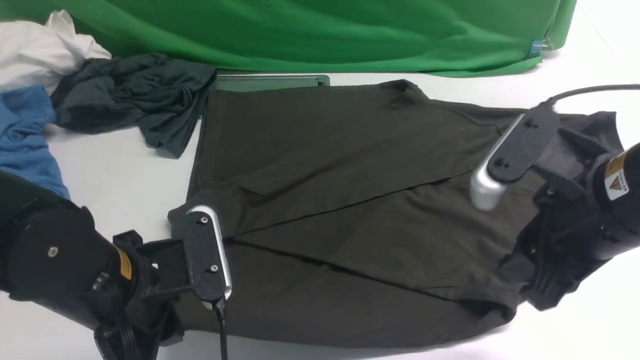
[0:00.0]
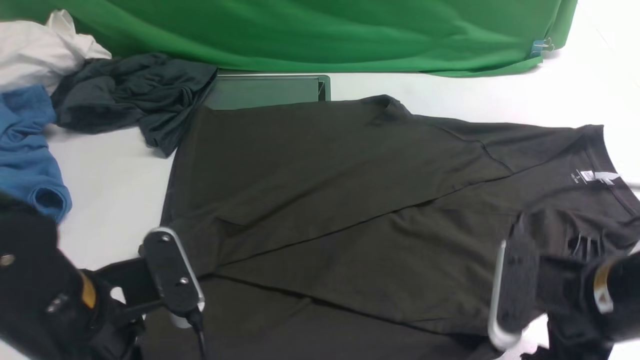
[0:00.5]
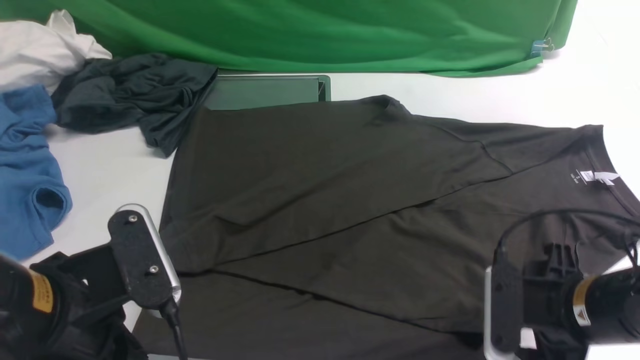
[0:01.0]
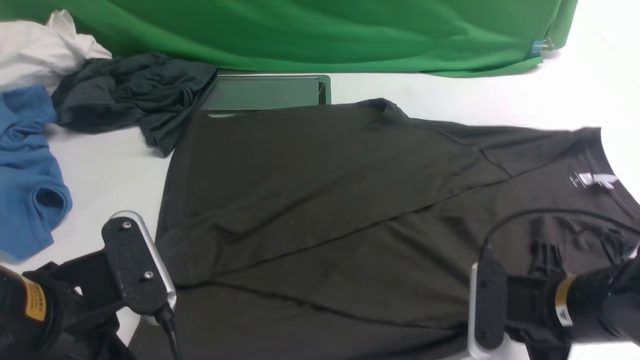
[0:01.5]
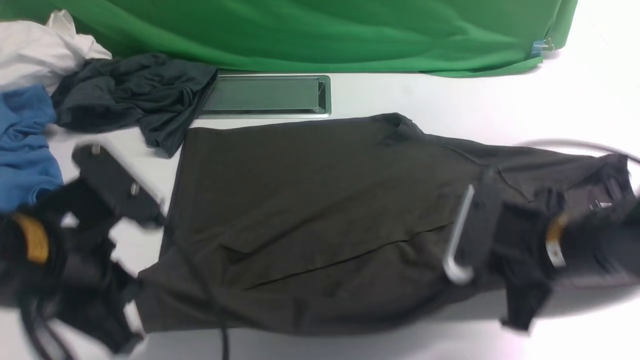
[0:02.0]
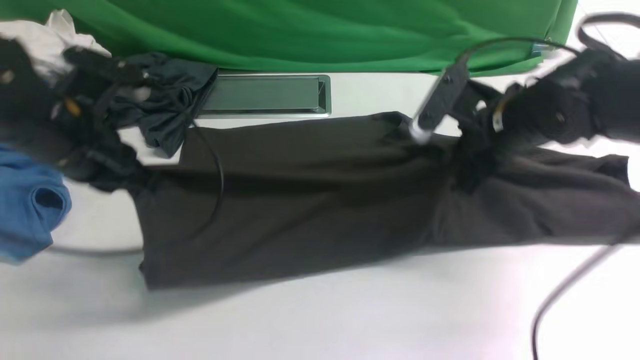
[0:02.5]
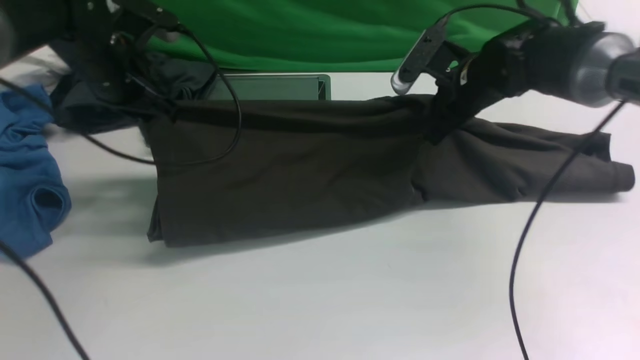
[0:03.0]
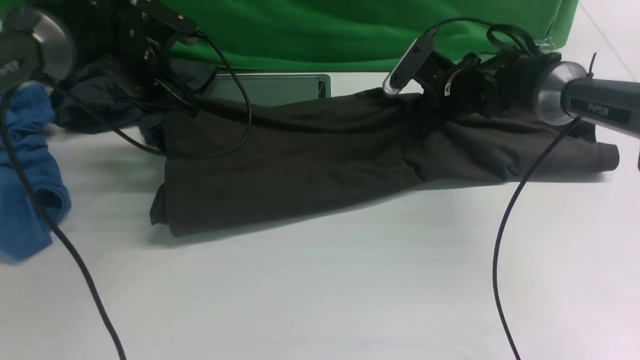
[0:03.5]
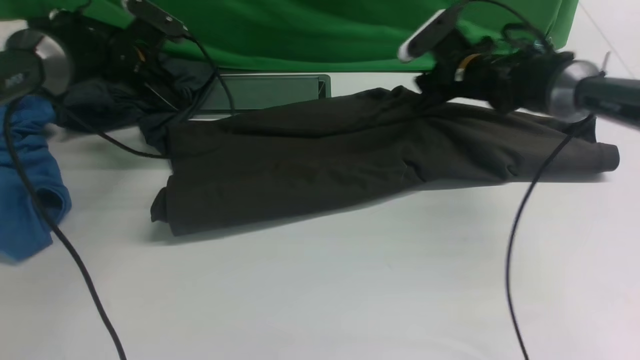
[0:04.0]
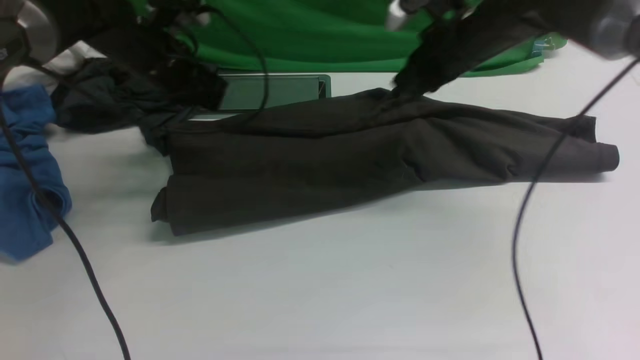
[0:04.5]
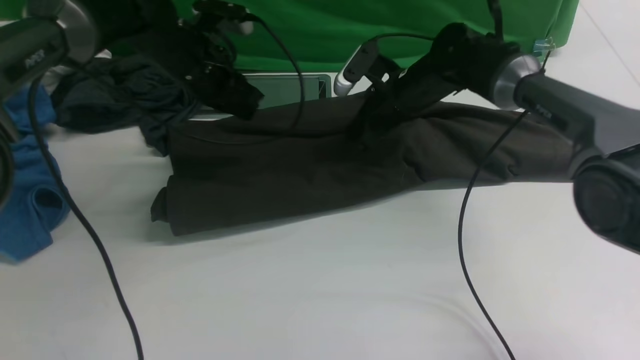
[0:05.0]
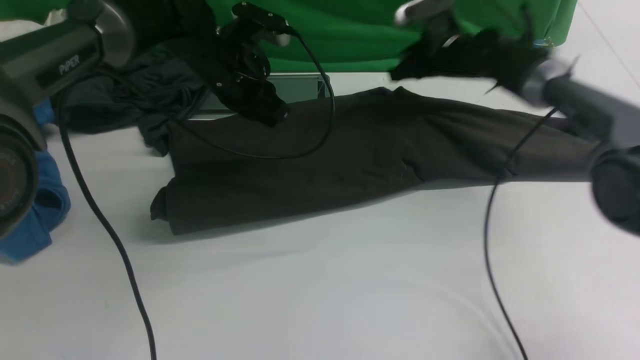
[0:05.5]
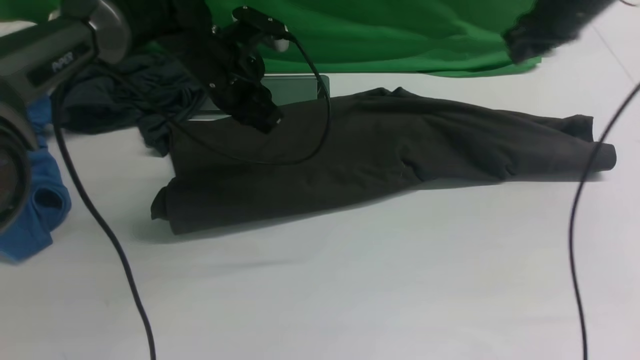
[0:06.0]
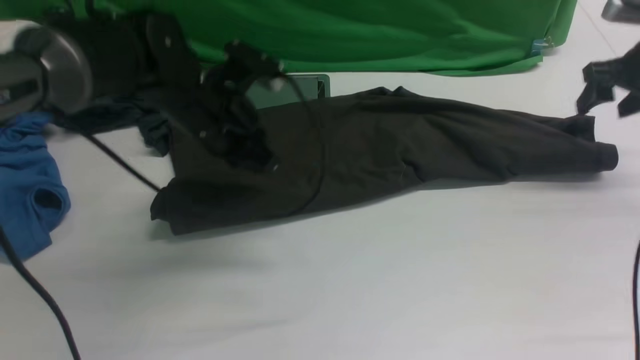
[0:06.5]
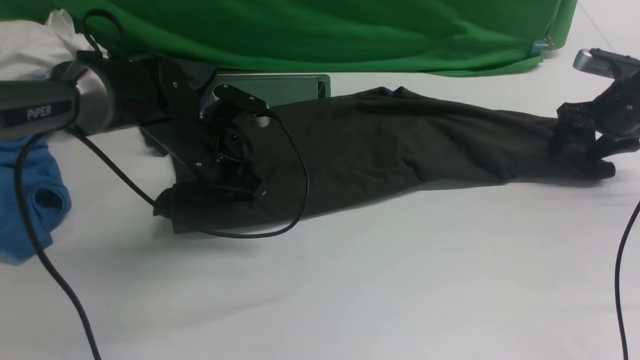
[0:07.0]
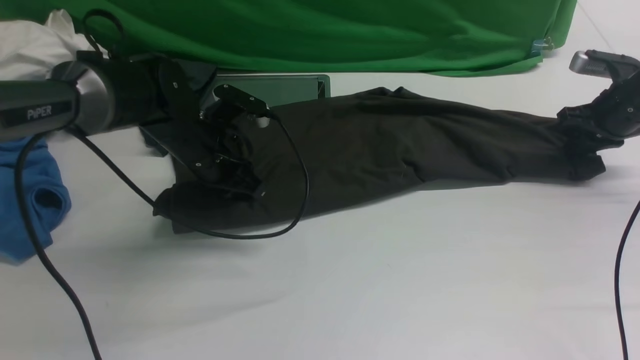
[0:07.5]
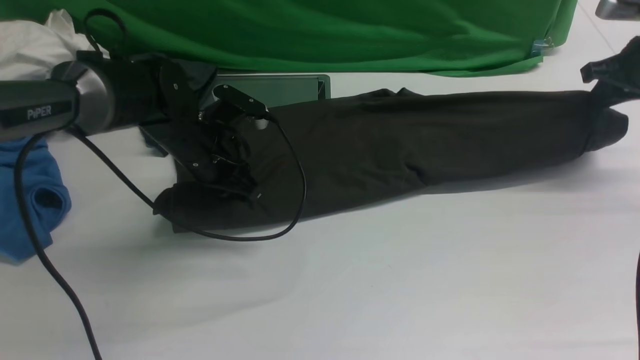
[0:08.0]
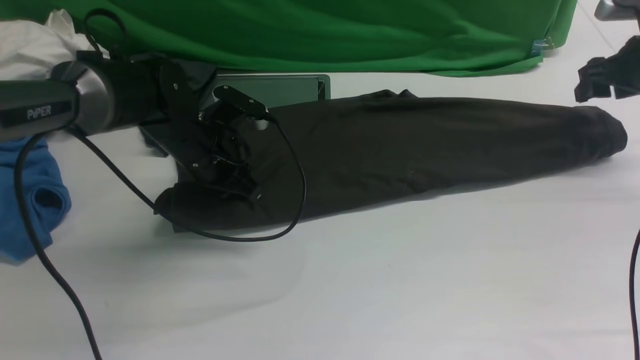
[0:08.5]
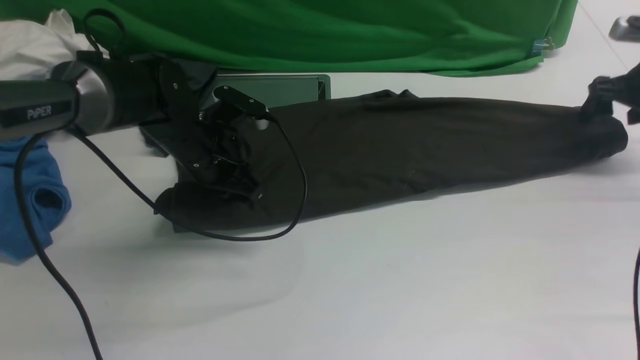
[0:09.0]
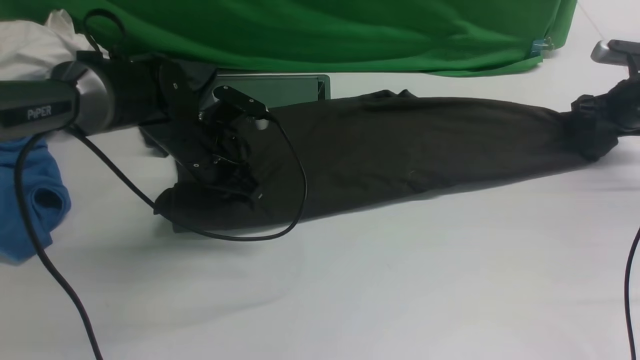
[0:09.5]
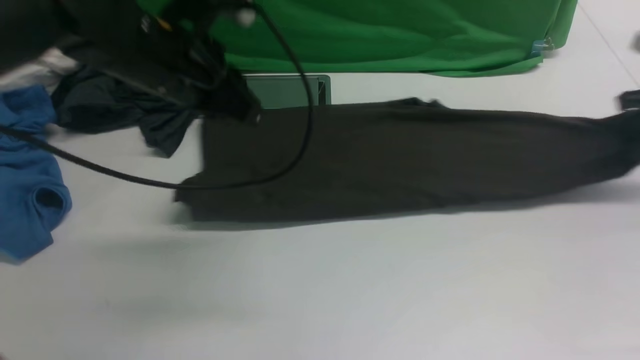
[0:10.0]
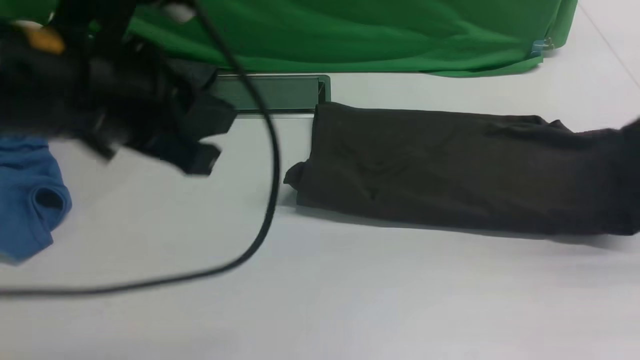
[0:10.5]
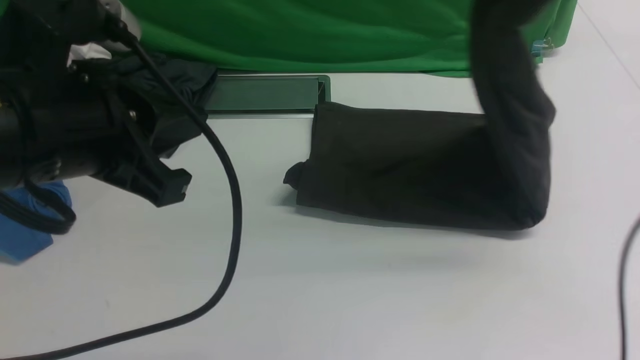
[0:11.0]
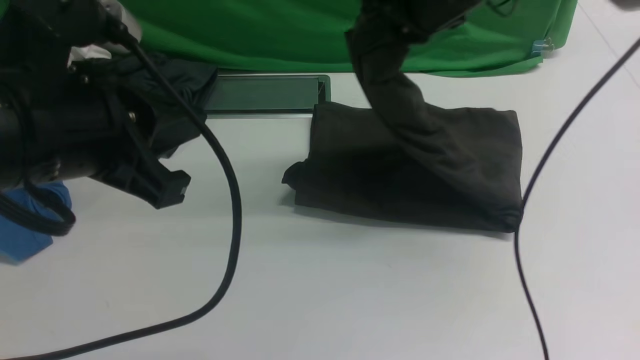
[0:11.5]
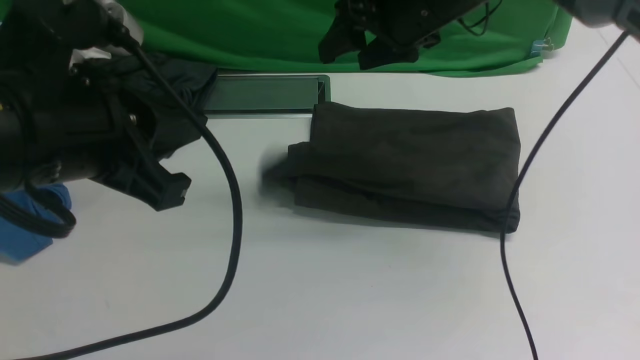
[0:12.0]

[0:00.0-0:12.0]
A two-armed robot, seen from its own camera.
Step, 0:02.0 to 0:05.0: use both arms to drag the lower edge of the fabric forward and fold it over the upper edge.
Step, 0:05.5 to 0:09.5: use the right arm to clamp the right edge of the fabric.
0:00.0 to 0:02.0: The left gripper shifts roughly 5 cm upward; the right gripper moves downward, some 10 cm, and closes.
0:02.0 to 0:04.0: The two grippers go some 30 cm forward. The right gripper opens. The left gripper opens up.
0:04.0 to 0:06.0: The right gripper travels to the right and upward by about 15 cm, and closes, then opens again. Meanwhile the left gripper travels to the right by about 15 cm, and closes up.
0:06.0 to 0:08.0: The left gripper travels downward by some 10 cm; the right gripper is displaced to the right by roughly 10 cm, and opens, then closes again.
0:08.0 to 0:10.0: The left gripper goes approximately 15 cm upward and backward, while the right gripper shifts approximately 5 cm to the right, goes downward and returns, roughly 10 cm each way, and opens, then closes again.
0:10.0 to 0:12.0: The left gripper heads backward, covering about 15 cm. Meanwhile the right gripper moves to the left, roughly 35 cm, and opens.

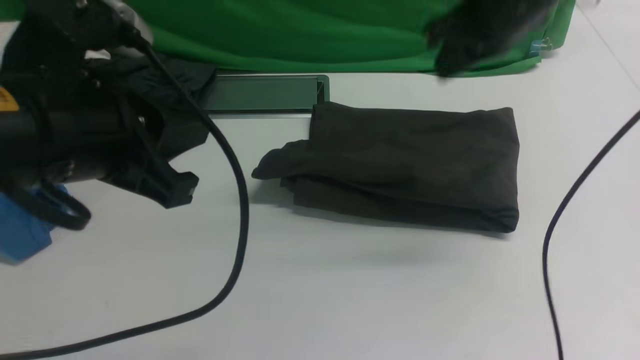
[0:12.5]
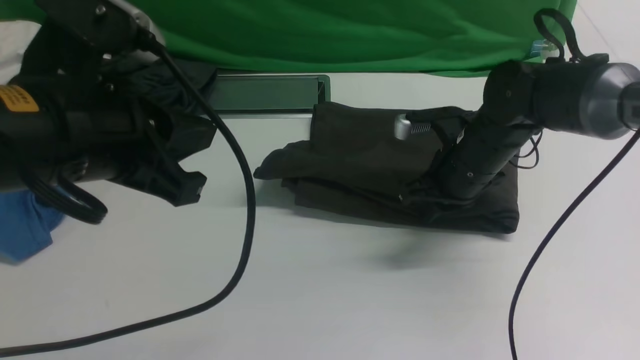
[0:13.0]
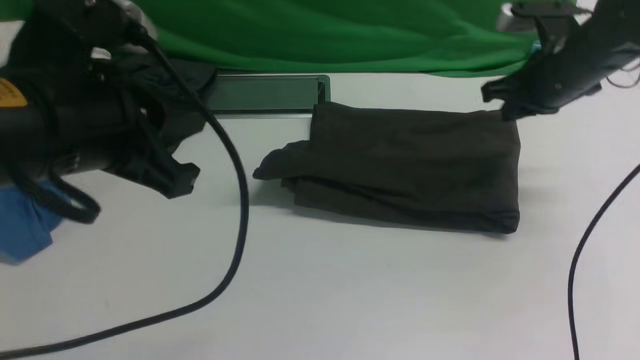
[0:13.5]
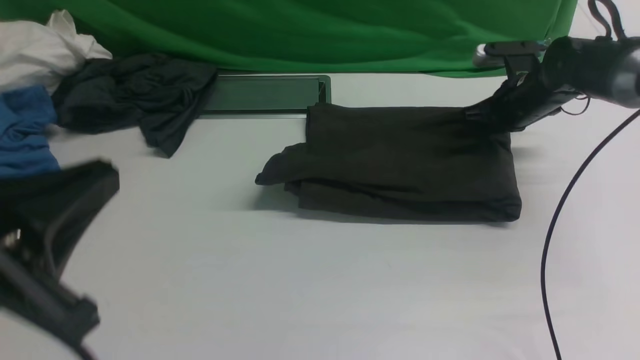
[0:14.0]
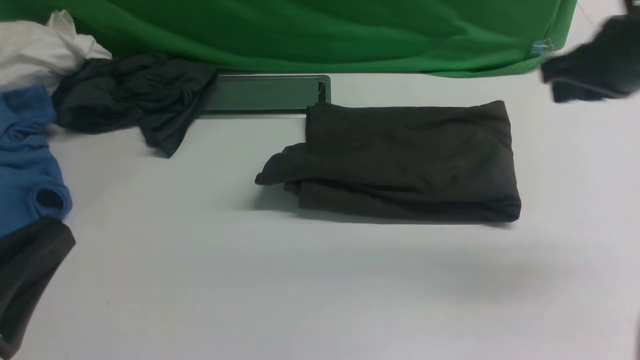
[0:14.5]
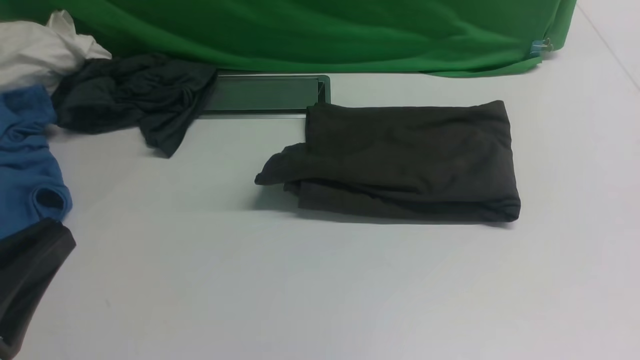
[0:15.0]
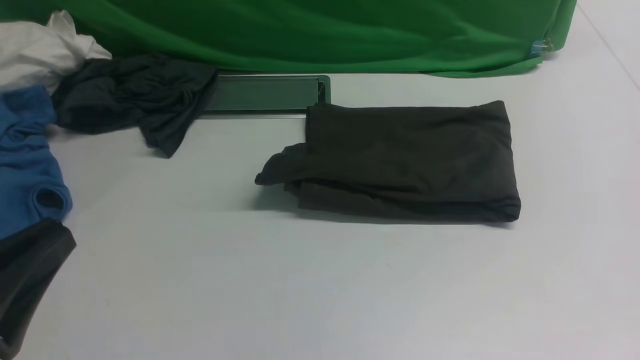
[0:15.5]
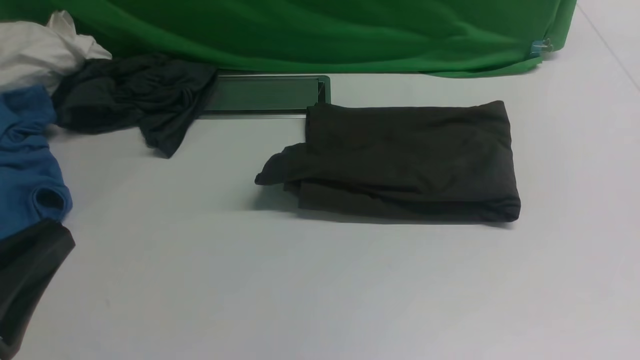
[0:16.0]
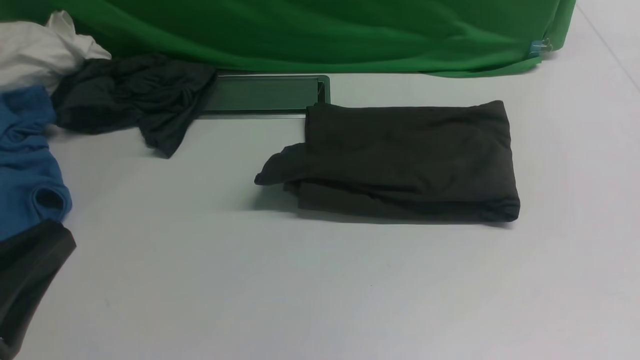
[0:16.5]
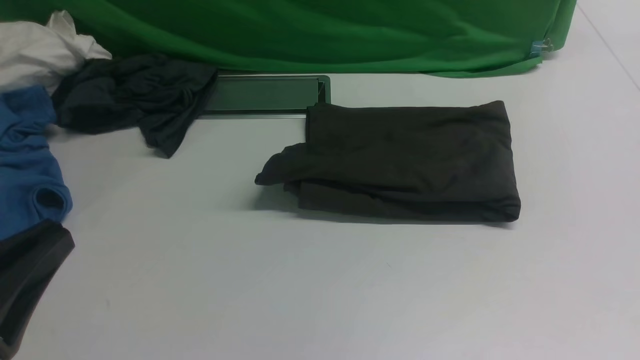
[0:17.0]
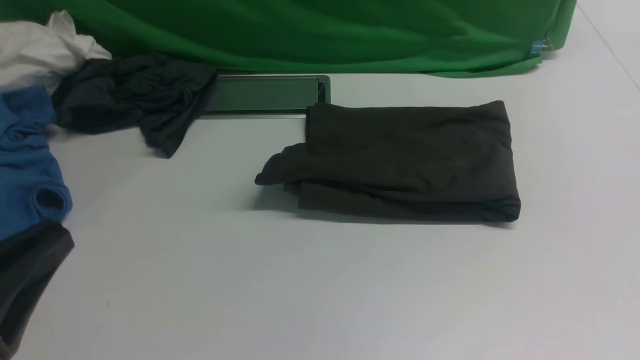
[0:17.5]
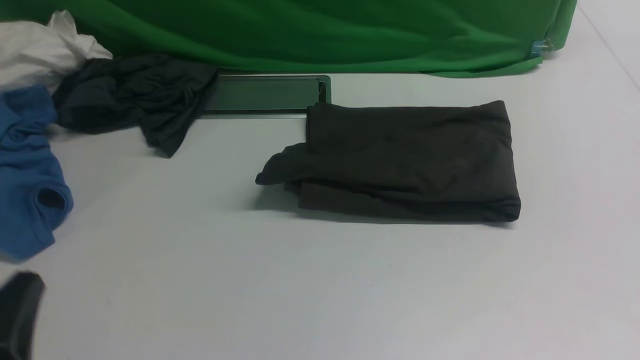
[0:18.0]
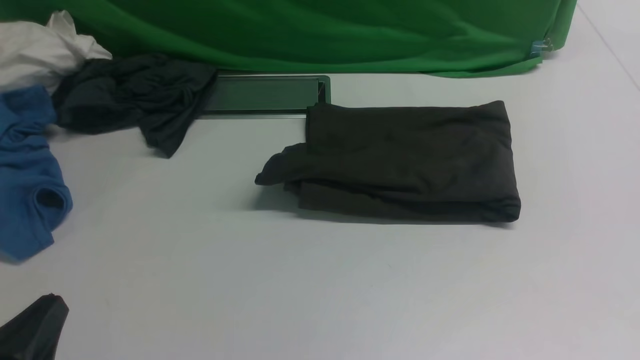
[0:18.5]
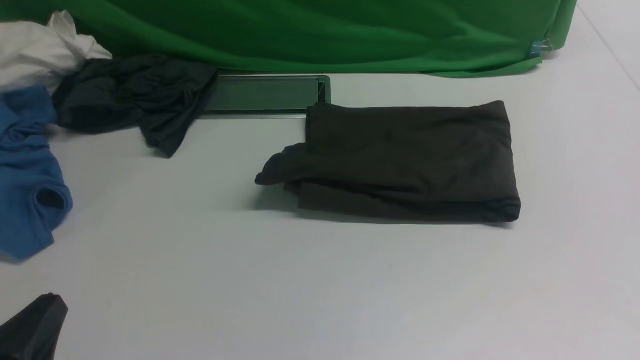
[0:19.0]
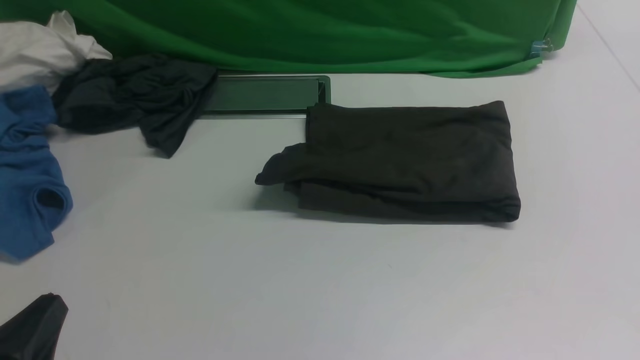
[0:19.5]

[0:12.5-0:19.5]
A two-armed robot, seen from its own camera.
0:12.5 to 0:14.5: The right gripper heads to the right and backward, covering approximately 15 cm. Meanwhile the left gripper travels backward and downward by about 15 cm.
0:14.5 to 0:16.0: The right gripper heads backward, covering approximately 25 cm.
0:17.5 to 0:19.5: The left gripper goes about 10 cm downward.

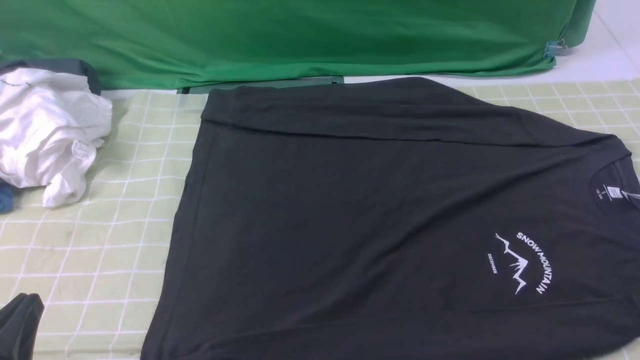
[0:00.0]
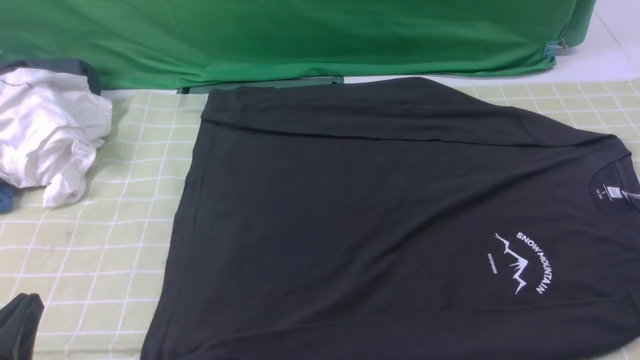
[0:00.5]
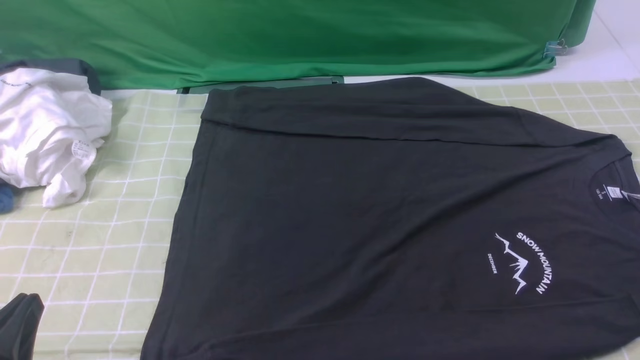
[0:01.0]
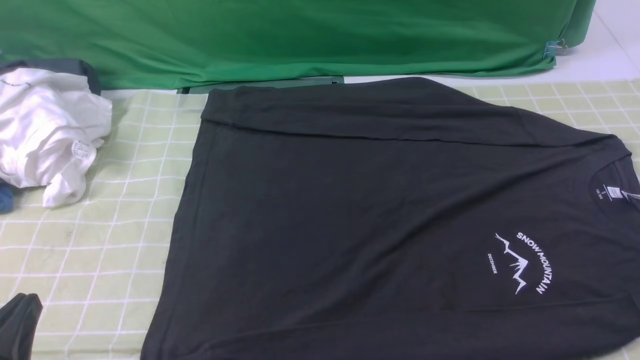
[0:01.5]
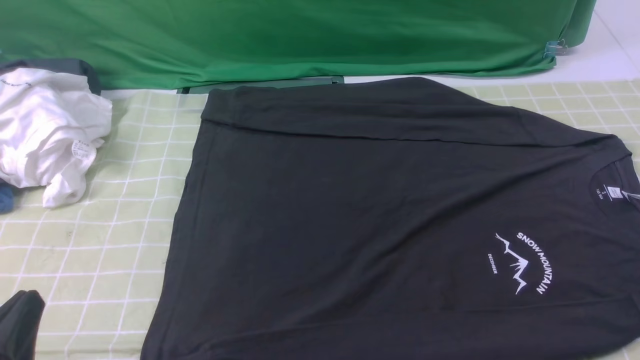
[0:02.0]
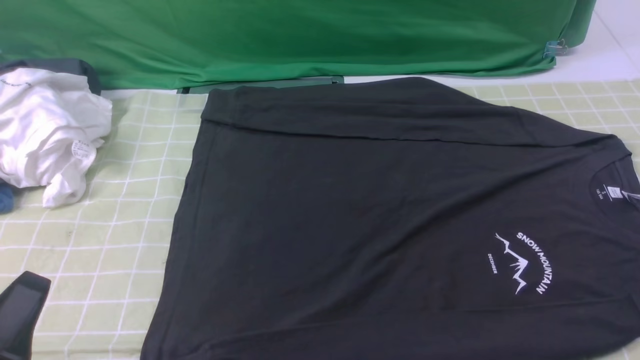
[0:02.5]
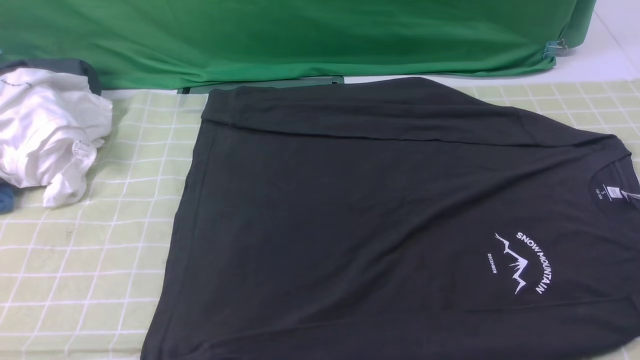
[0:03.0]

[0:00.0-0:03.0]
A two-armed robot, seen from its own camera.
0:00.0 to 0:01.5: Both grippers stay put.
0:01.5 to 0:03.0: The left gripper travels upward by roughly 15 cm.
